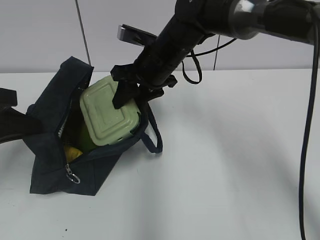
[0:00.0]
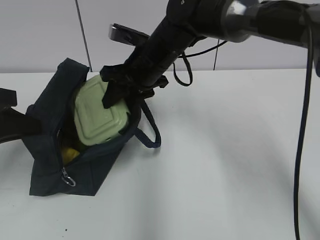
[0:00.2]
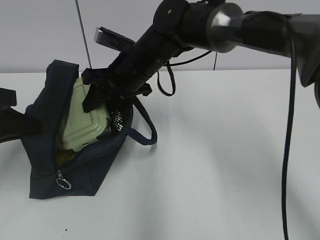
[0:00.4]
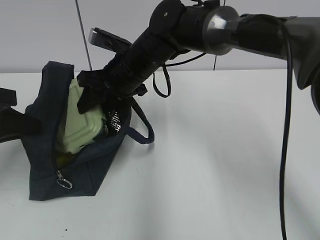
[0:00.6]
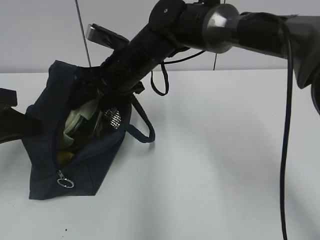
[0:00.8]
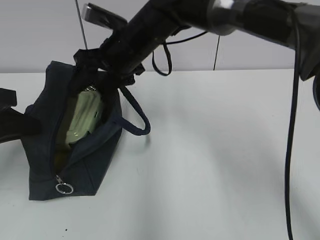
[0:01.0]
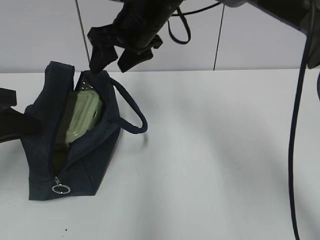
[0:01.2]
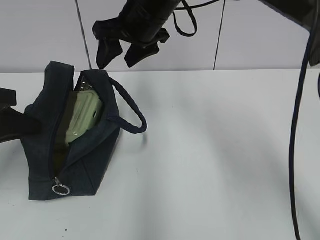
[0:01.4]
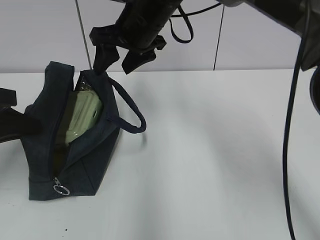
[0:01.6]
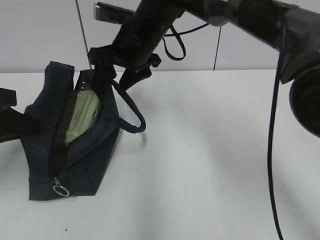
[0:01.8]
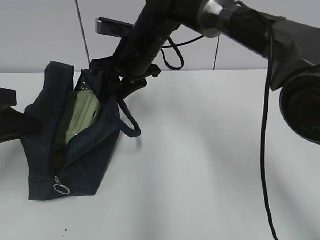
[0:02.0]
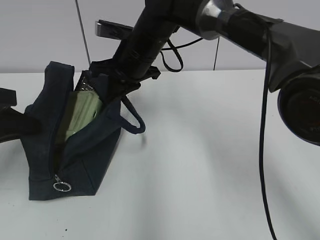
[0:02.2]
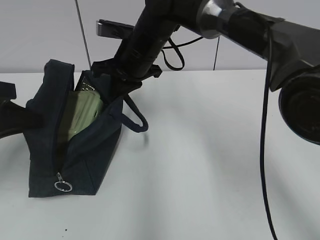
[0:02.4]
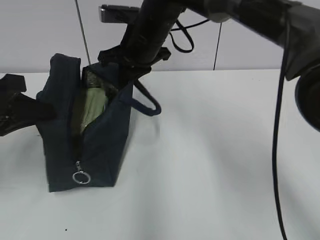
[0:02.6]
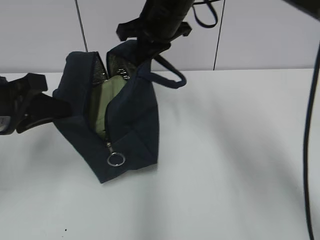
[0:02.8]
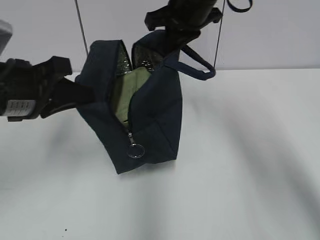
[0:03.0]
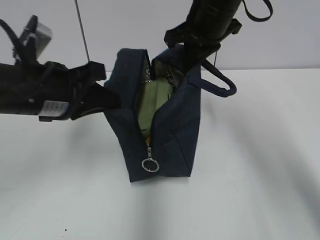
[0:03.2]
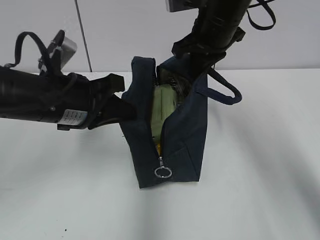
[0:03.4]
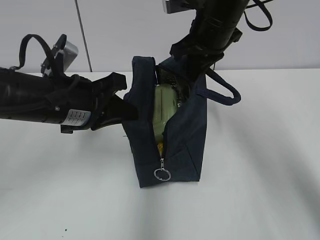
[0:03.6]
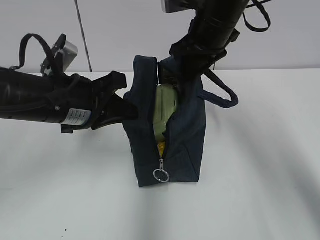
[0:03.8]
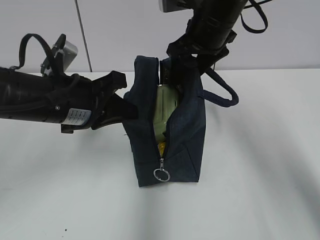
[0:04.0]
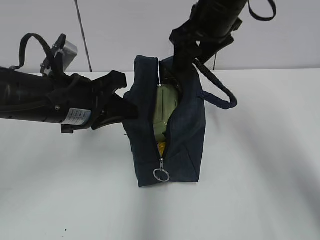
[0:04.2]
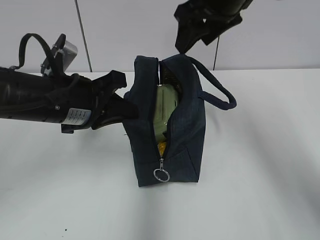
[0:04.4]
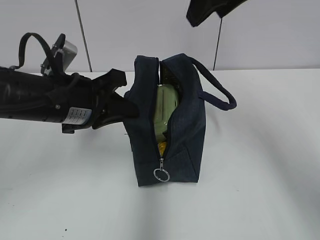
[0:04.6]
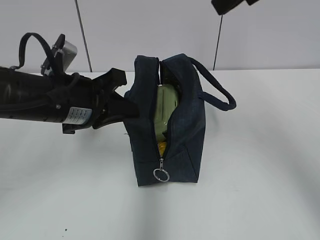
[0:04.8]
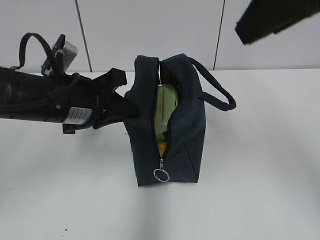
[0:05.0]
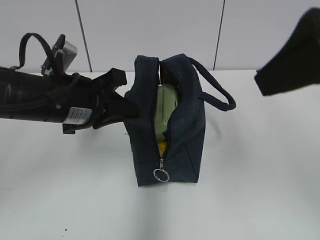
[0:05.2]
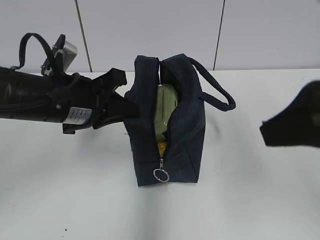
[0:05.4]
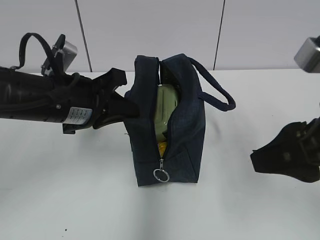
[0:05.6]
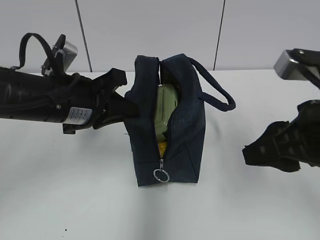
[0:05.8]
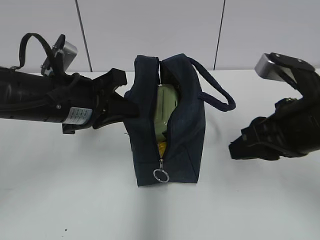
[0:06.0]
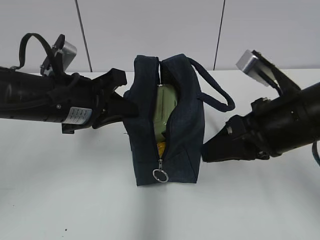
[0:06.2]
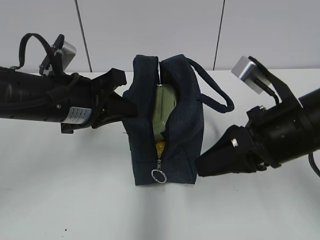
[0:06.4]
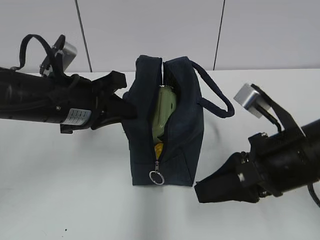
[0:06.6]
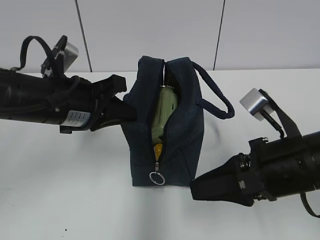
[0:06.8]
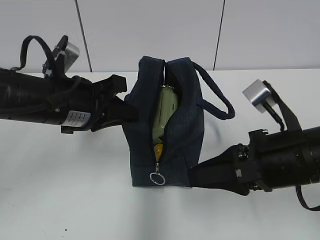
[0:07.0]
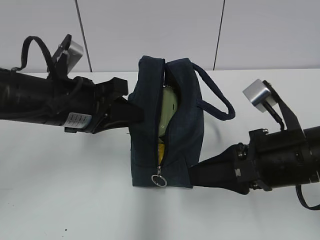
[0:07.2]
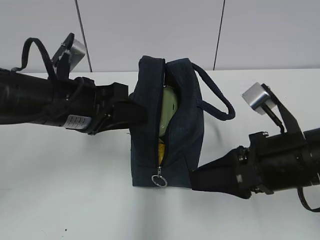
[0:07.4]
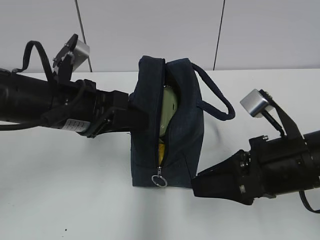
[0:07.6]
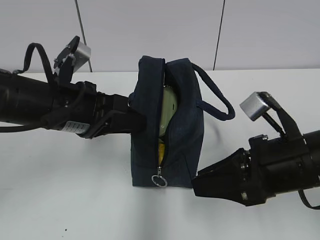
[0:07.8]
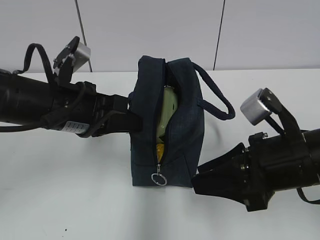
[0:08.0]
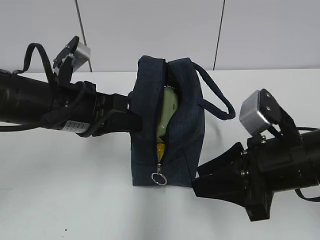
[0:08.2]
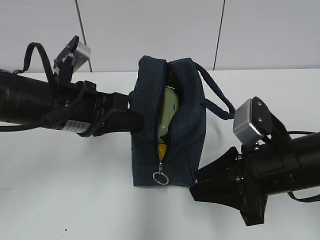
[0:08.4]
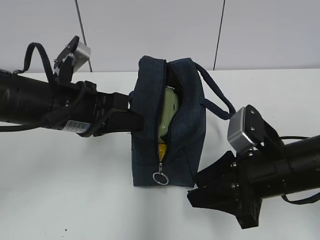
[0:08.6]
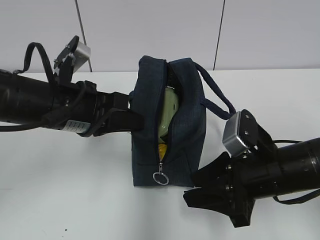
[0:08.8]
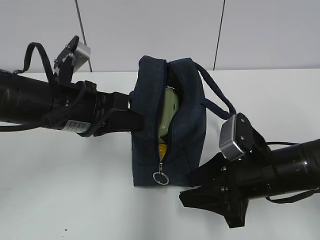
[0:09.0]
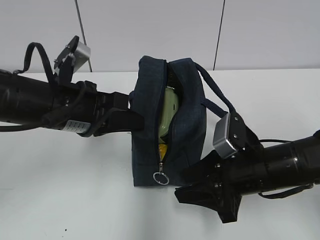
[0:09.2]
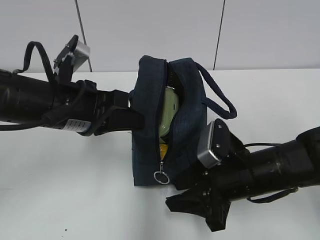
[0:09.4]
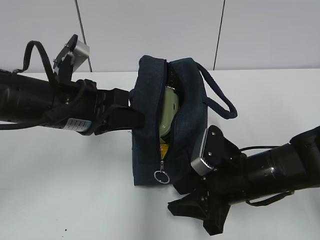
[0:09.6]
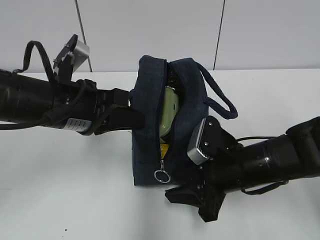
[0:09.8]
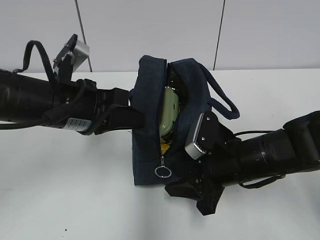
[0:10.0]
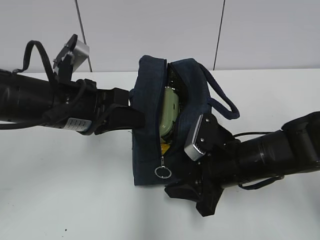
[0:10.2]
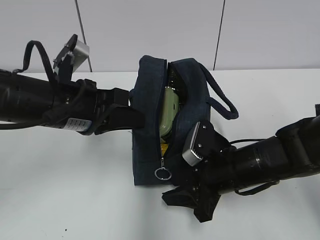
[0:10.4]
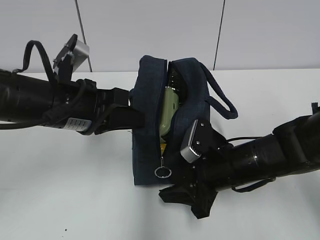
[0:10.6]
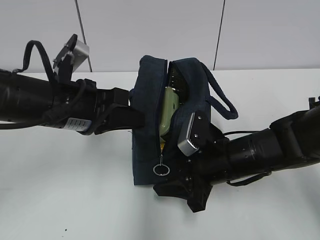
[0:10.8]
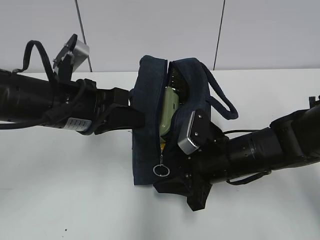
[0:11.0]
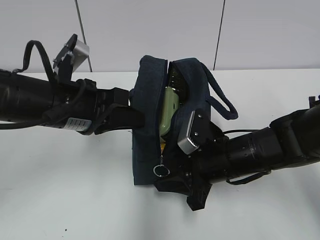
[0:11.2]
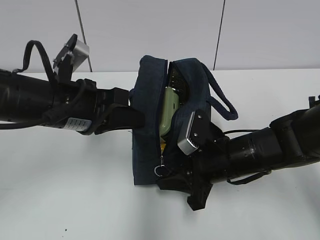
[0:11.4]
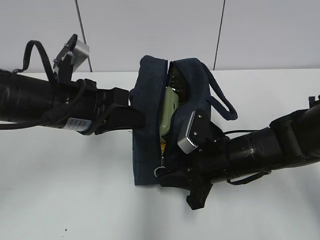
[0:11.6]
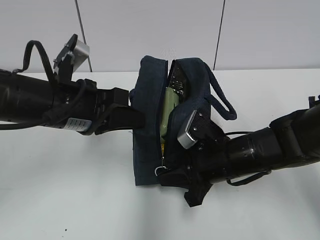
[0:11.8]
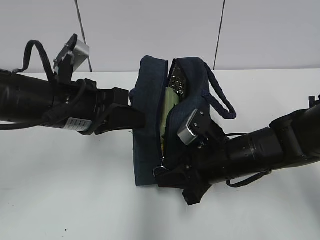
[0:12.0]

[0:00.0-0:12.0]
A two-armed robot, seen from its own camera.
Step, 0:01.0 to 0:02.4: Grab the lunch bag with your right hand.
Step, 0:02.6 to 0:04.2: Move the lunch bag to the right.
0:00.0 to 0:01.6: The right gripper heads upward, covering roughly 5 cm.
0:01.6 to 0:03.0: The grippers both shift to the right by about 10 cm. The right gripper closes up.
0:03.0 to 0:04.4: The left gripper is displaced to the right by about 5 cm; the right gripper changes place by roughly 5 cm, and opens.
0:04.4 to 0:06.0: The right gripper shifts approximately 20 cm backward, downward and to the right, and closes.
0:06.0 to 0:07.6: The left gripper opens up. The right gripper shifts by some 5 cm.
0:07.6 to 0:09.0: The right gripper moves downward, roughly 5 cm. The left gripper closes.
0:09.0 to 0:10.4: The right gripper moves roughly 5 cm.
0:10.4 to 0:12.0: The right gripper closes.

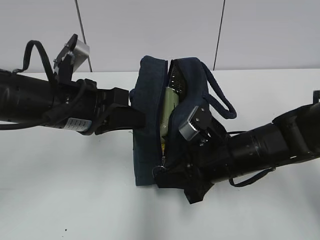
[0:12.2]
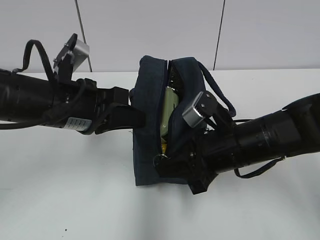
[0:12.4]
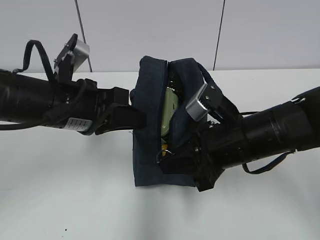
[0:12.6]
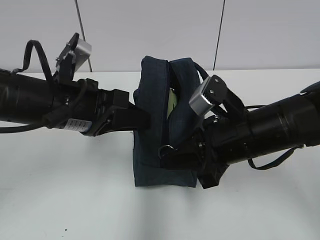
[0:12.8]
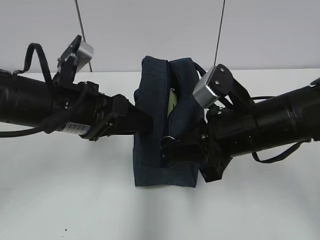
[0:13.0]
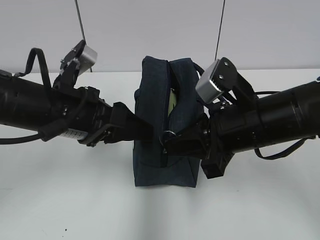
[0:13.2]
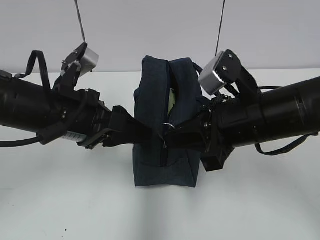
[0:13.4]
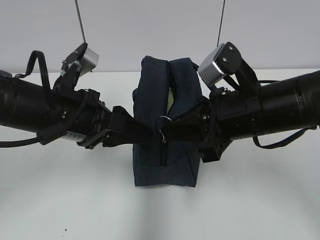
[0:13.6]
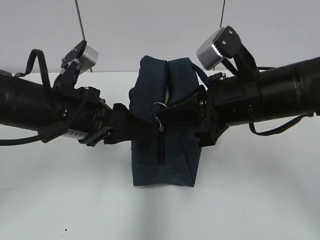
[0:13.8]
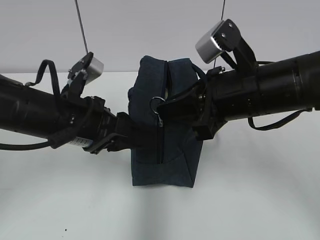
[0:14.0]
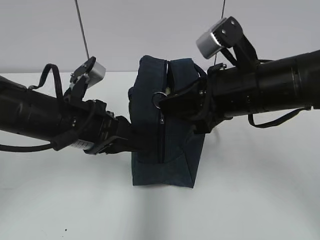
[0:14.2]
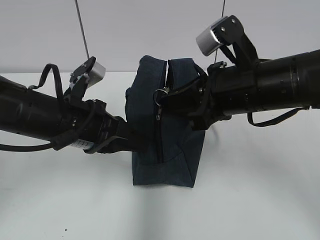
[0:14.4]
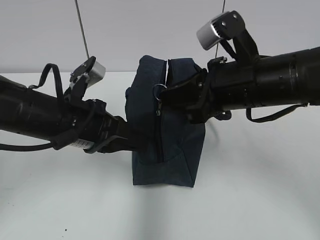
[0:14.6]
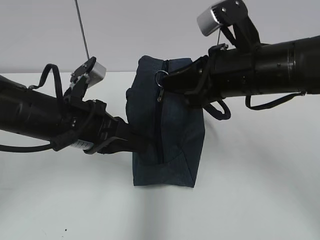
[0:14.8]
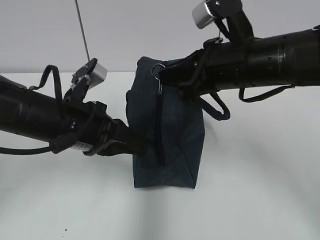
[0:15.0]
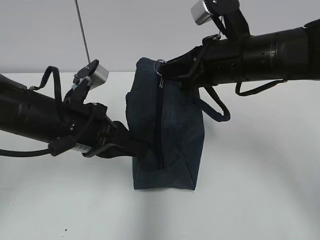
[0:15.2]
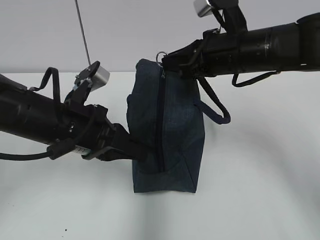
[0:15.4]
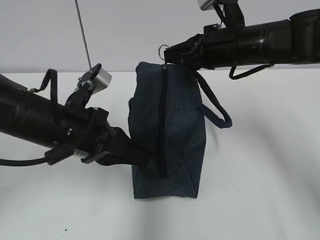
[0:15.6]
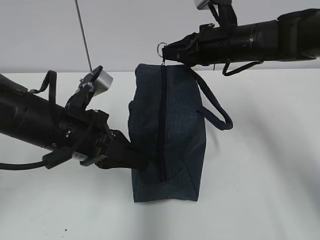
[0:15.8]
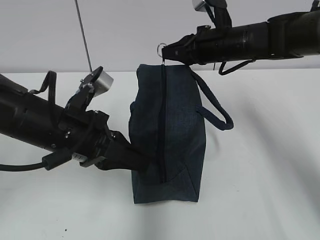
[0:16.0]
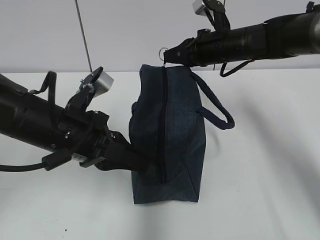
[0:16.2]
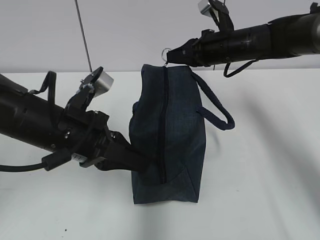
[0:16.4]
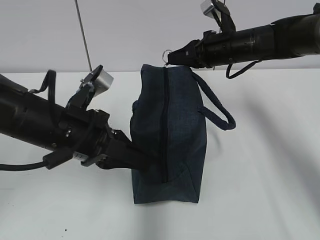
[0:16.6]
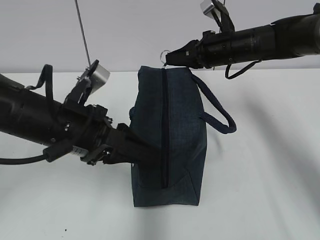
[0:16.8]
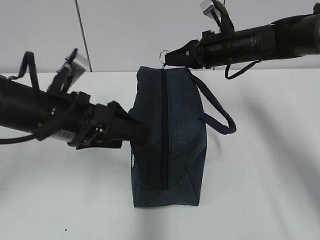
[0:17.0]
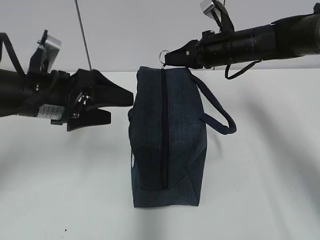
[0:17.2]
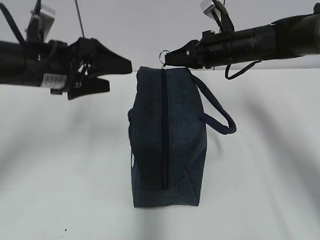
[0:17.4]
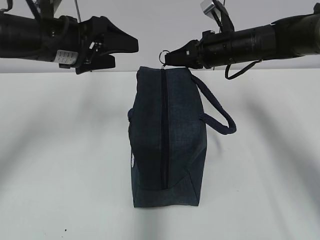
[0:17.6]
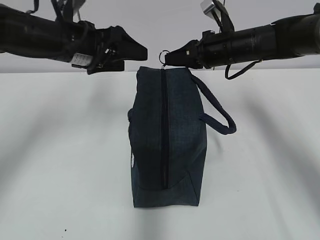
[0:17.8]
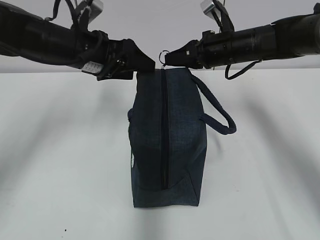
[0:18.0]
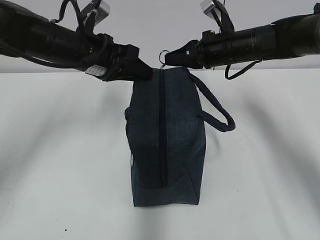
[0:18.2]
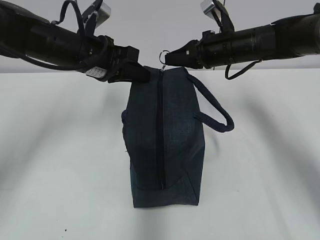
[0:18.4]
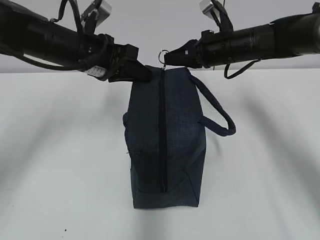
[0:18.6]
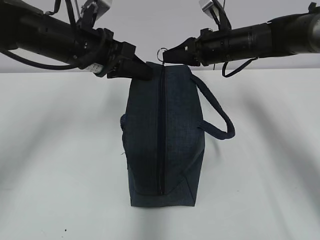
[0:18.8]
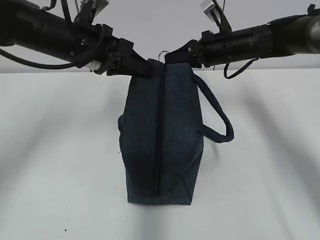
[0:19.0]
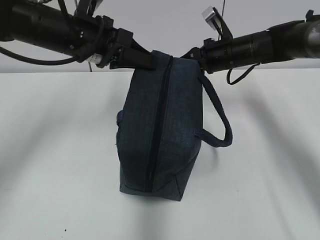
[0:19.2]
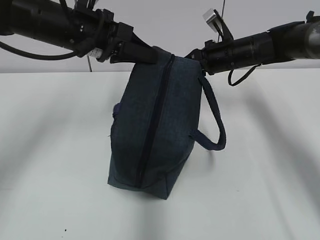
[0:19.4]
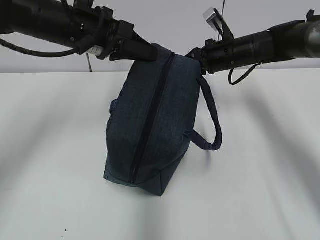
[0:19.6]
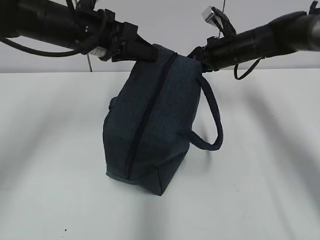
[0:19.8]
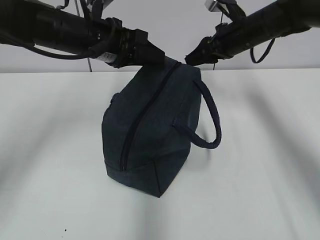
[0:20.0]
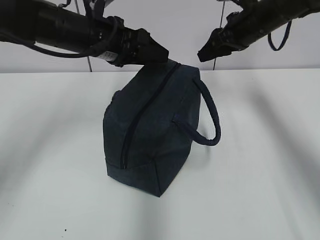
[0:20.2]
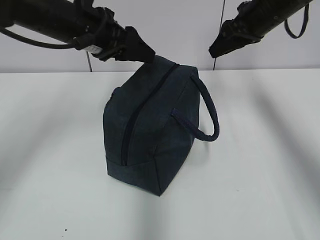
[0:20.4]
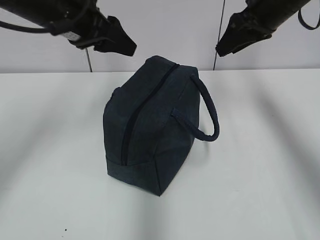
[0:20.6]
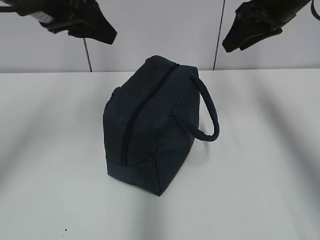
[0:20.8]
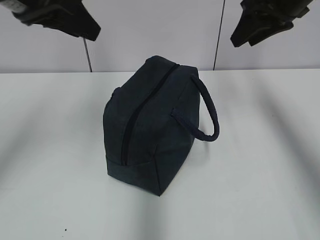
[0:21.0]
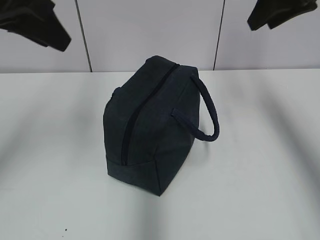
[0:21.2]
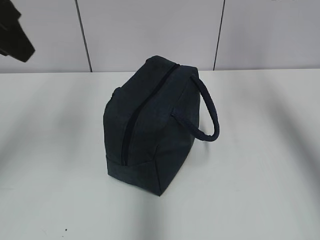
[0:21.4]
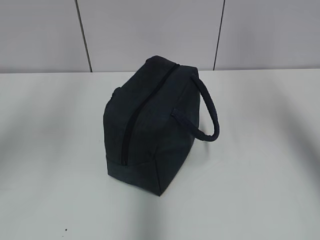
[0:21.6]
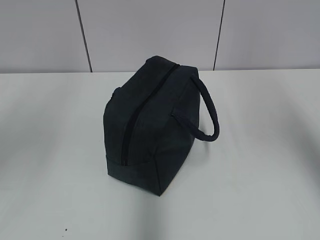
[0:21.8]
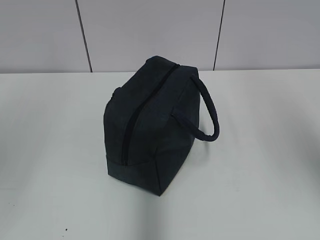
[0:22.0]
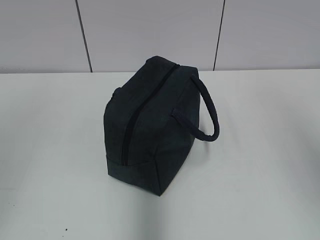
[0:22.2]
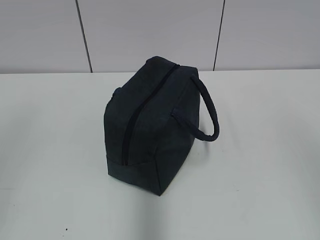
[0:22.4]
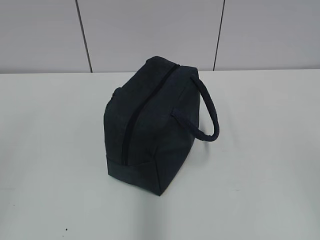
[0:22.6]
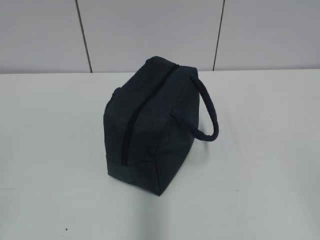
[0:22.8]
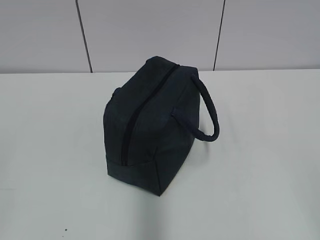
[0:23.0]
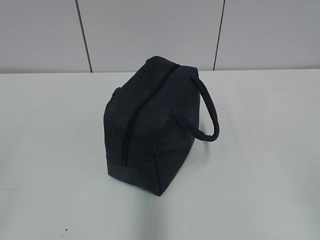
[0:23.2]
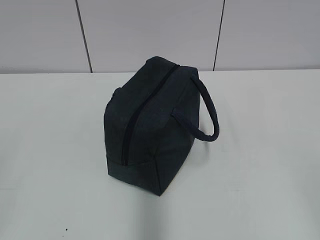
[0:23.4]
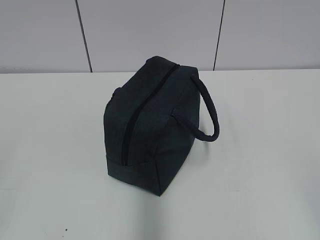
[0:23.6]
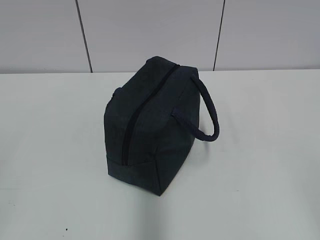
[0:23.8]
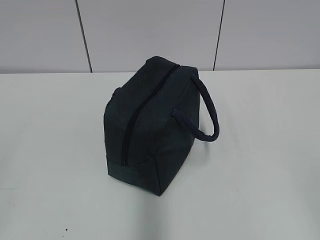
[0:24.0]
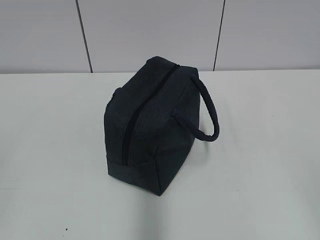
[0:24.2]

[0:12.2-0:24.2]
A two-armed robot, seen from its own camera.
Step, 0:17.0 to 0:19.8: Pull the zipper with your right hand.
Step, 0:20.0 to 0:20.2: Grab the lunch bag with your left hand.
0:12.2 to 0:13.8: The left gripper opens up; the right gripper shifts some 10 cm upward.
0:13.8 to 0:15.2: The left gripper closes its fingers. Meanwhile the right gripper moves forward, approximately 5 cm.
0:15.2 to 0:16.6: The right gripper is displaced forward by some 15 cm.
0:16.6 to 0:18.2: The left gripper is displaced forward by about 15 cm, and opens, then closes again.
0:19.8 to 0:21.2: The right gripper shifts approximately 20 cm upward and backward. The left gripper moves upward, backward and to the left, about 15 cm, and opens up.
0:21.2 to 0:22.6: The left gripper moves backward and to the left, roughly 30 cm, while the right gripper travels backward by some 40 cm.
